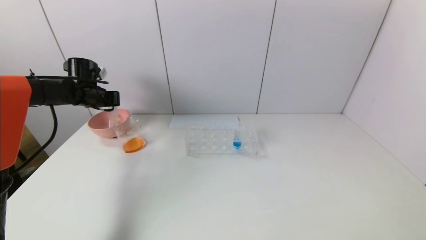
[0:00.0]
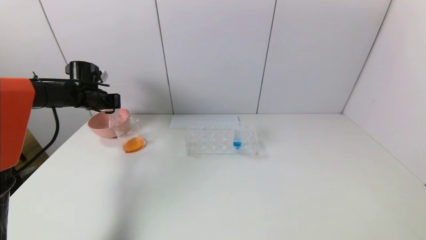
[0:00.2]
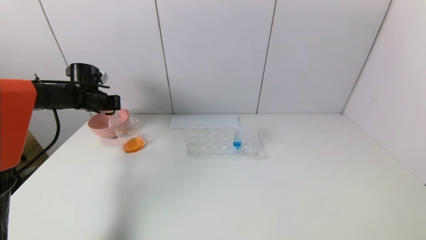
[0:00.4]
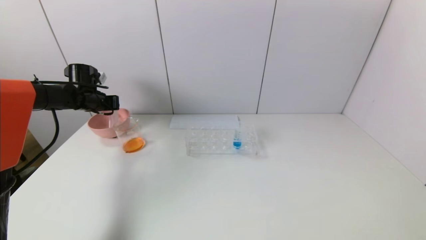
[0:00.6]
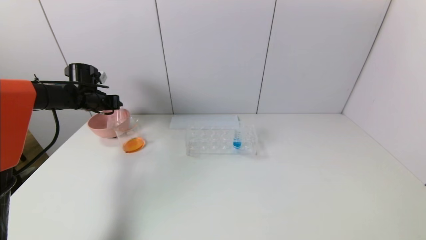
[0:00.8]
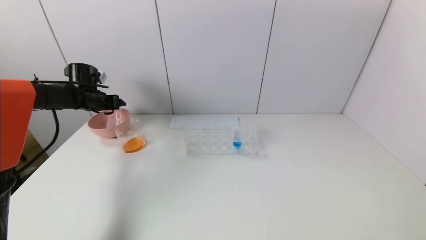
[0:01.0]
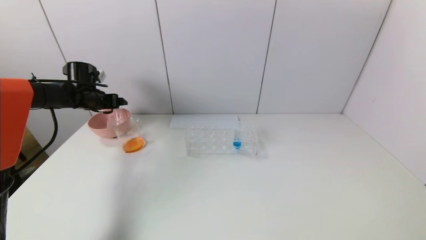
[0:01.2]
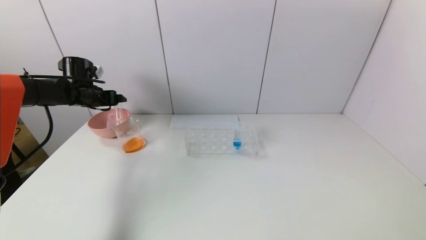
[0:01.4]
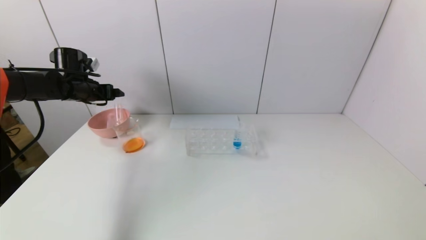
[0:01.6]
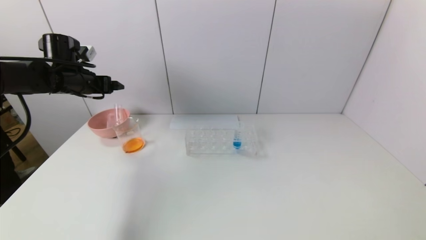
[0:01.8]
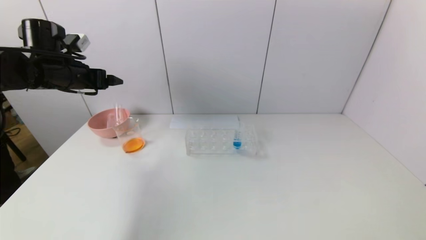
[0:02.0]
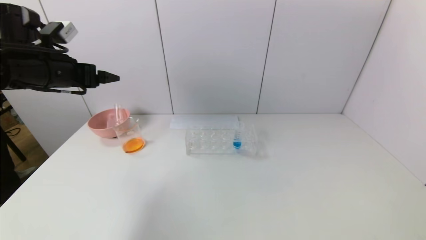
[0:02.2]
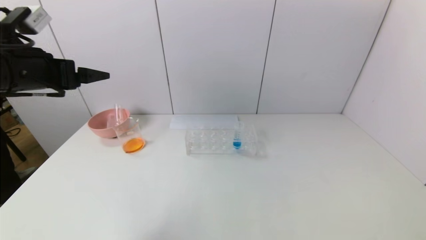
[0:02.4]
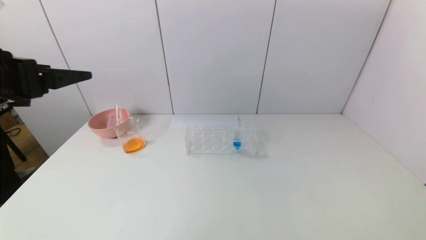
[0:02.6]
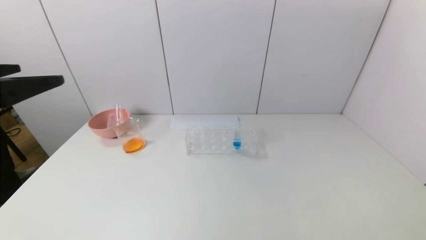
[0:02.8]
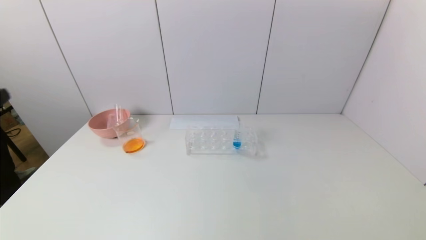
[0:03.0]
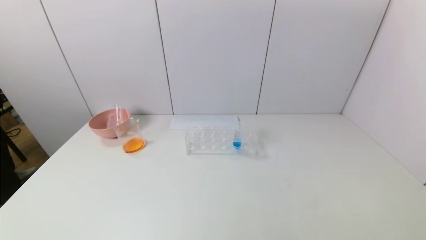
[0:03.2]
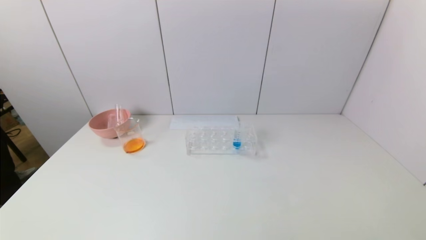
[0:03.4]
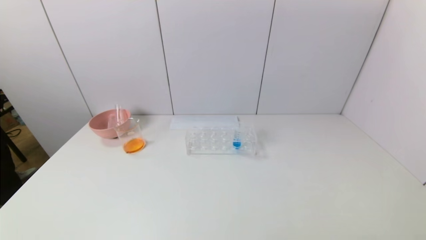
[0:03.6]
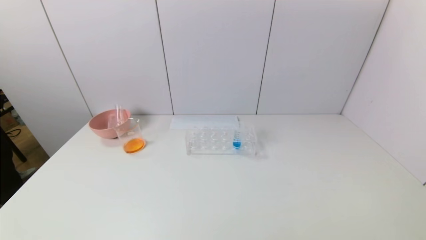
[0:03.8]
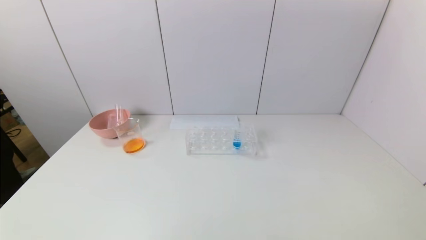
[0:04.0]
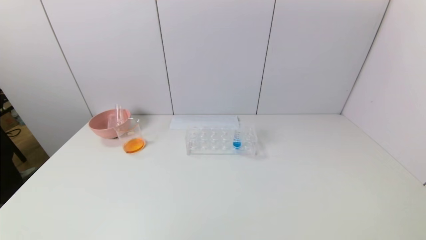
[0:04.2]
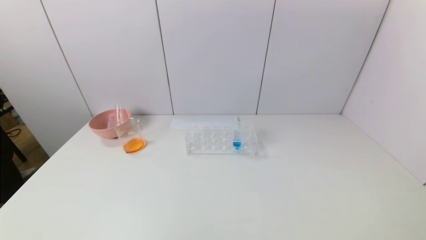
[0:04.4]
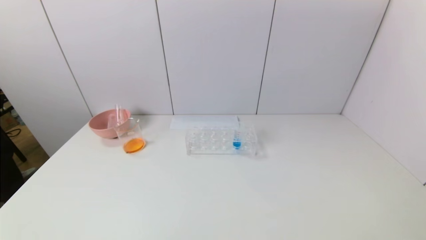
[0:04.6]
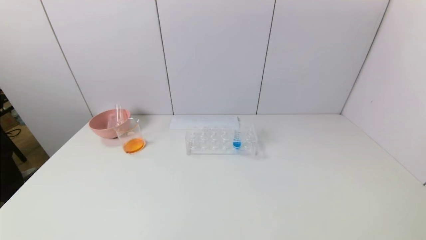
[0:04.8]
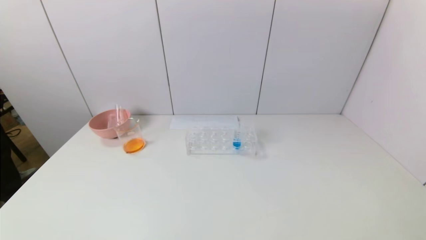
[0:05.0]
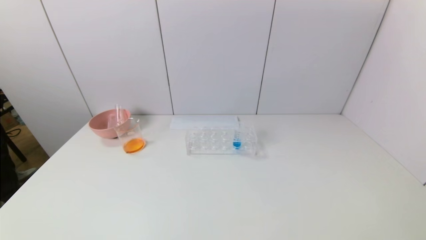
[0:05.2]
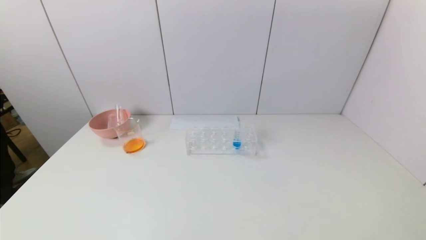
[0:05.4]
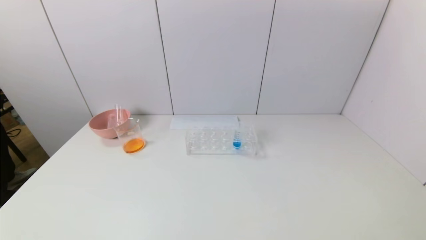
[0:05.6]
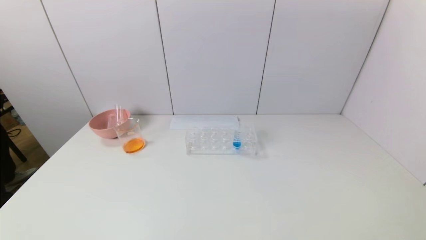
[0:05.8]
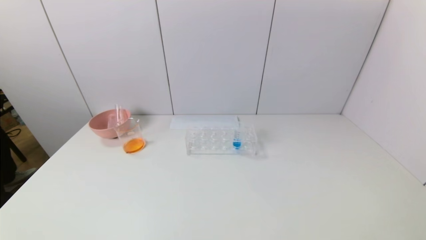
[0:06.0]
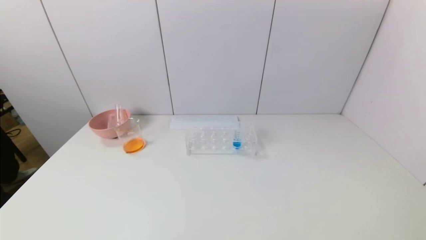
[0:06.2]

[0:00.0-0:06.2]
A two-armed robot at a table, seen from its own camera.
Task of the whole recording: pick up the test tube with yellow pigment and the test tube with red pigment by grippers and pour them into the beaker.
0:00.0 to 0:01.6: The left gripper changes place by some 5 cm, and opens its fingers.
0:01.6 to 0:03.2: The left gripper heads backward, covering approximately 50 cm.

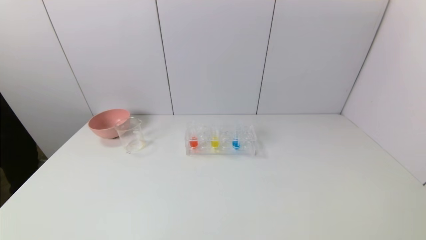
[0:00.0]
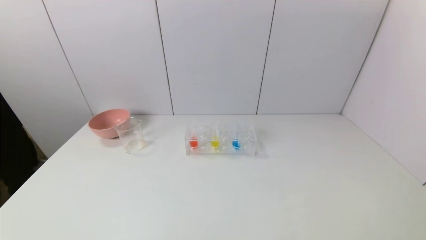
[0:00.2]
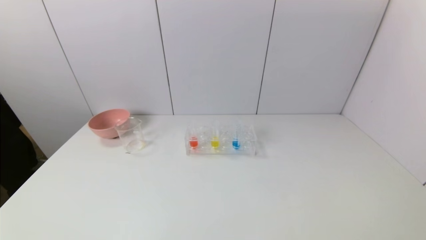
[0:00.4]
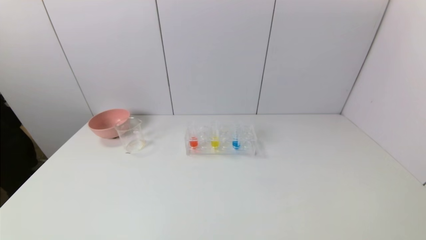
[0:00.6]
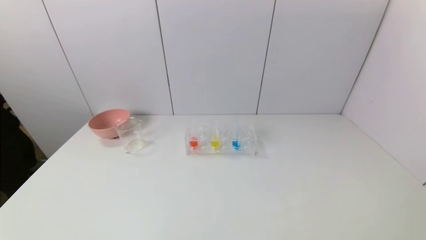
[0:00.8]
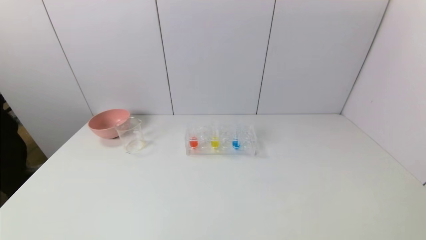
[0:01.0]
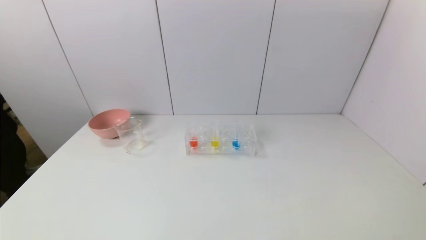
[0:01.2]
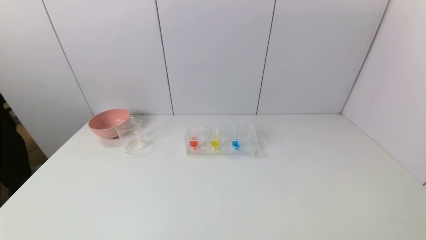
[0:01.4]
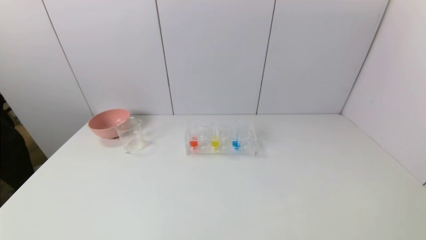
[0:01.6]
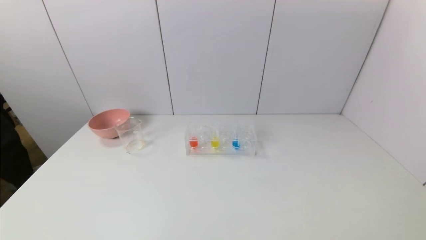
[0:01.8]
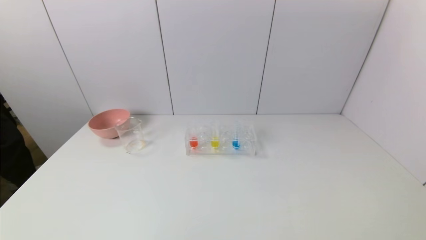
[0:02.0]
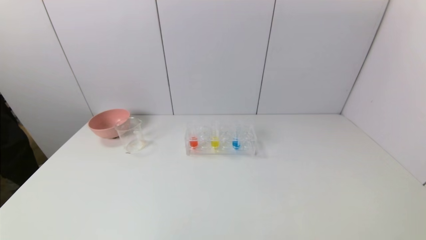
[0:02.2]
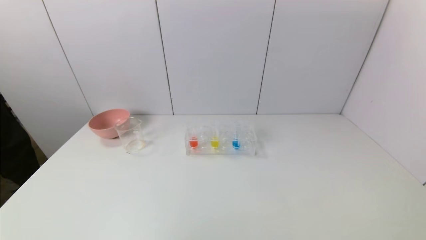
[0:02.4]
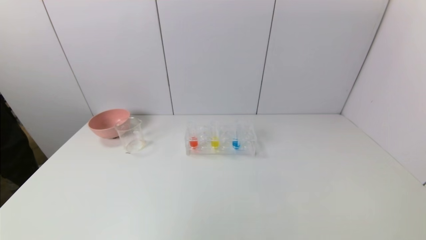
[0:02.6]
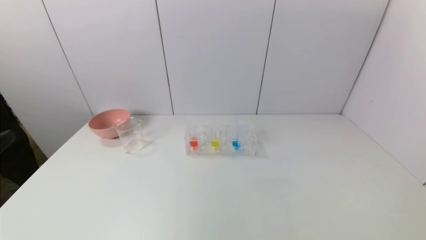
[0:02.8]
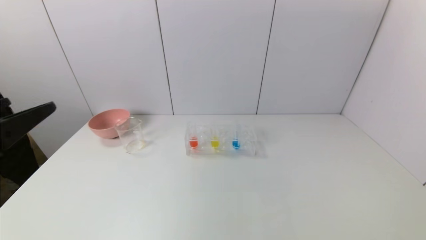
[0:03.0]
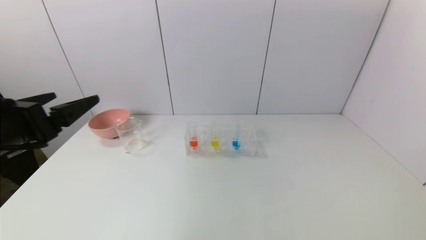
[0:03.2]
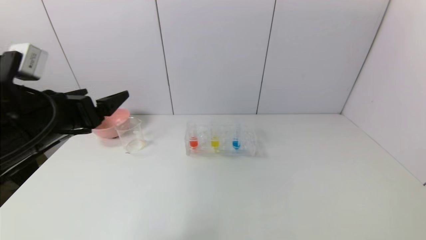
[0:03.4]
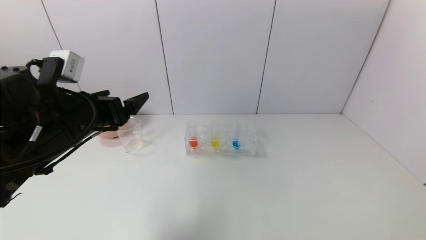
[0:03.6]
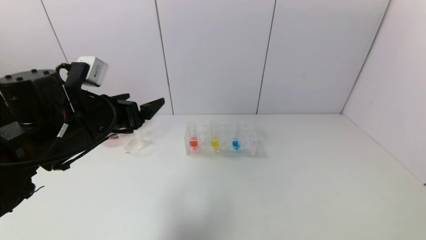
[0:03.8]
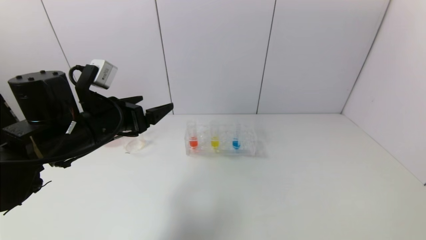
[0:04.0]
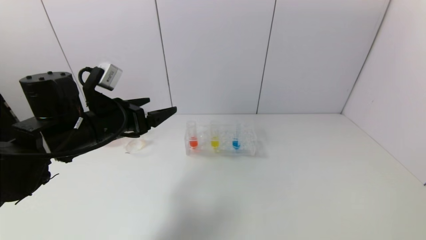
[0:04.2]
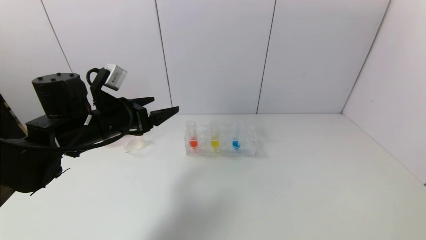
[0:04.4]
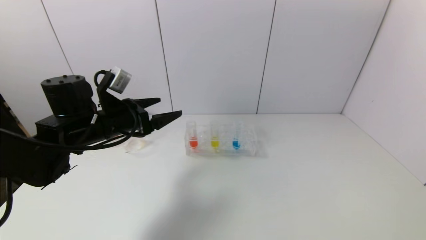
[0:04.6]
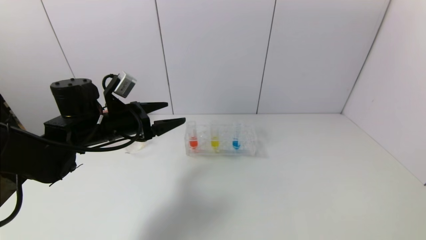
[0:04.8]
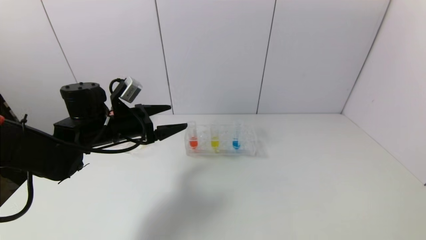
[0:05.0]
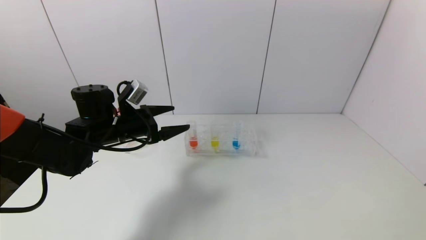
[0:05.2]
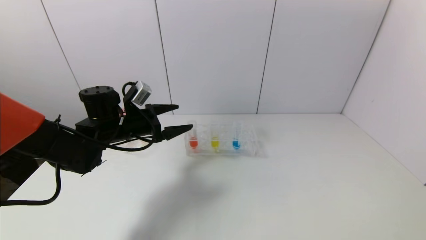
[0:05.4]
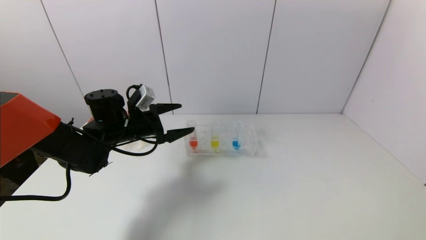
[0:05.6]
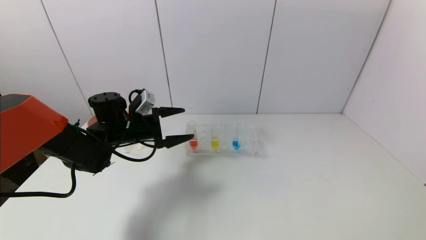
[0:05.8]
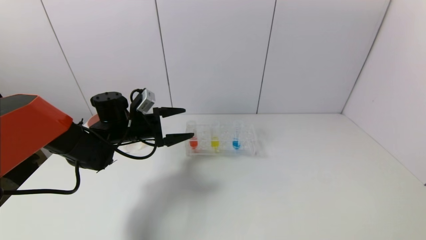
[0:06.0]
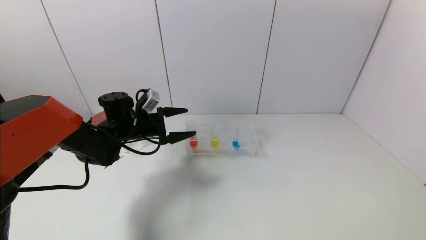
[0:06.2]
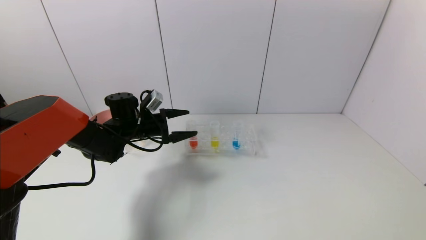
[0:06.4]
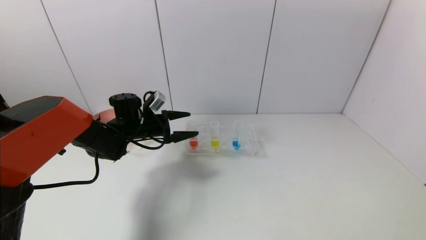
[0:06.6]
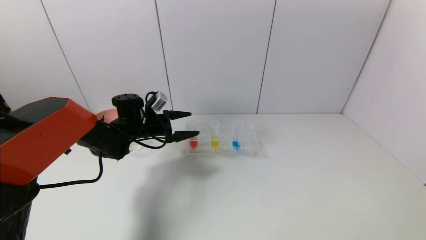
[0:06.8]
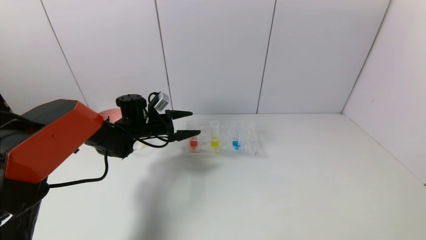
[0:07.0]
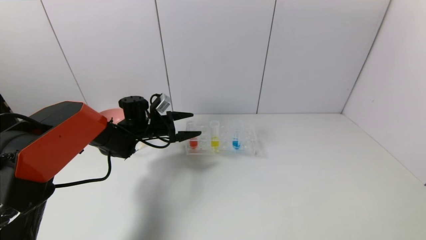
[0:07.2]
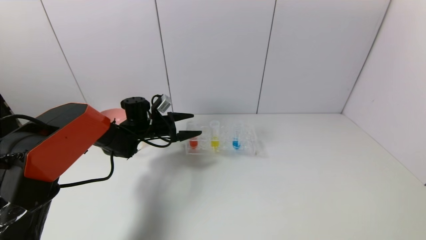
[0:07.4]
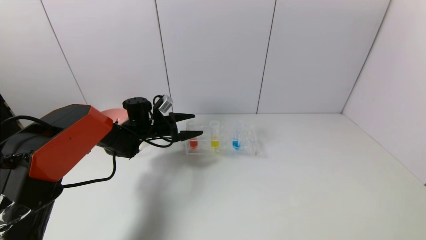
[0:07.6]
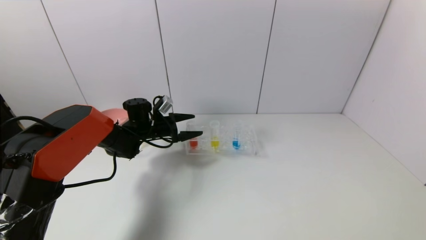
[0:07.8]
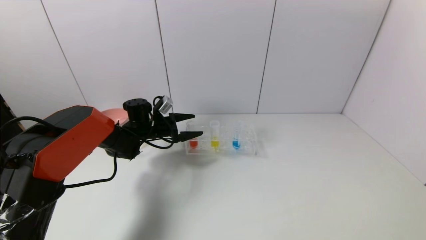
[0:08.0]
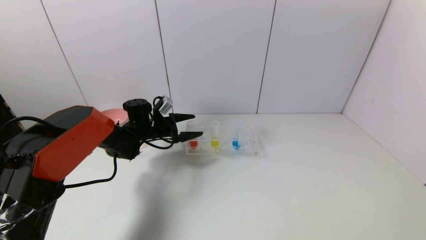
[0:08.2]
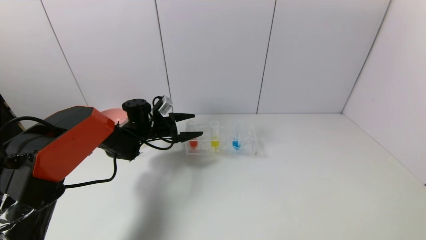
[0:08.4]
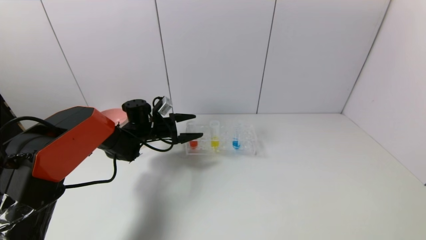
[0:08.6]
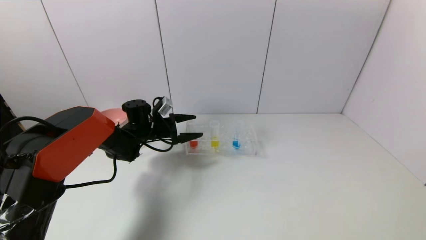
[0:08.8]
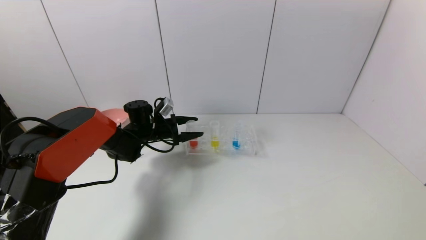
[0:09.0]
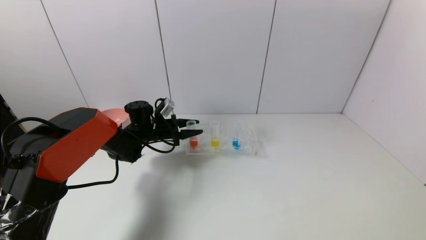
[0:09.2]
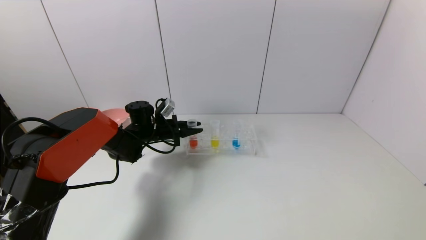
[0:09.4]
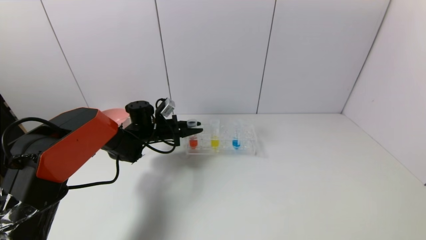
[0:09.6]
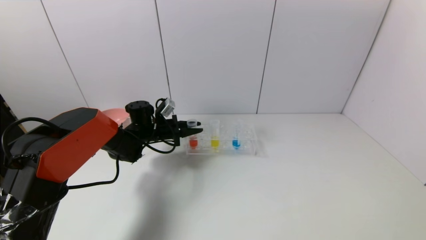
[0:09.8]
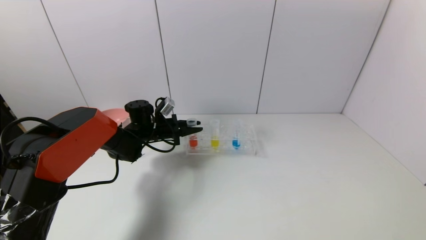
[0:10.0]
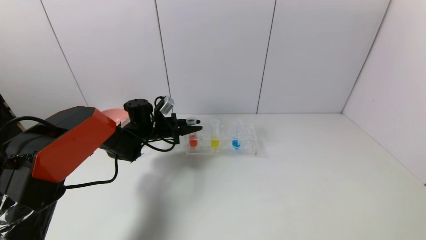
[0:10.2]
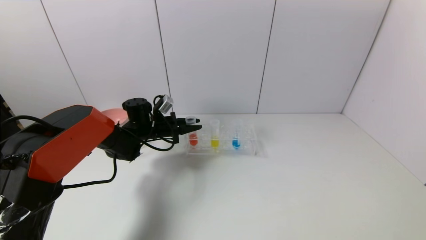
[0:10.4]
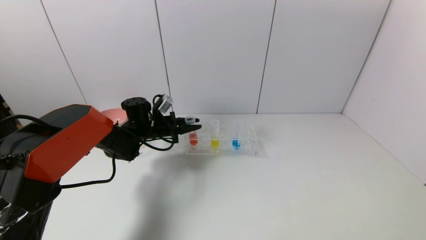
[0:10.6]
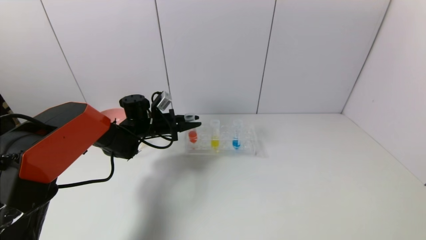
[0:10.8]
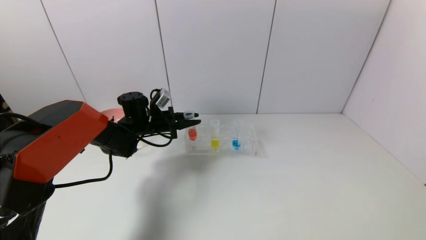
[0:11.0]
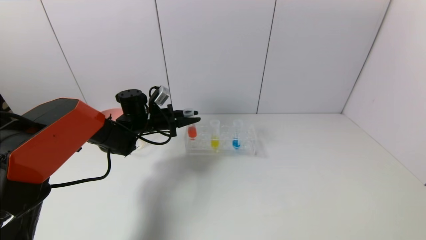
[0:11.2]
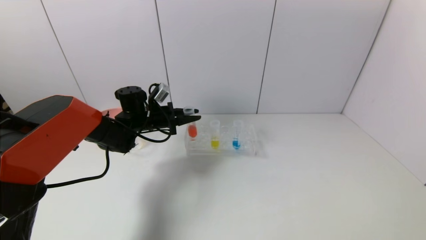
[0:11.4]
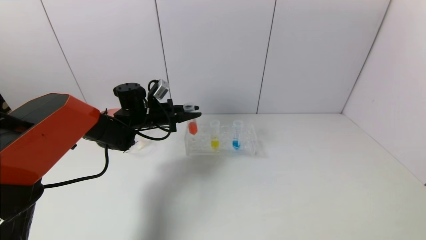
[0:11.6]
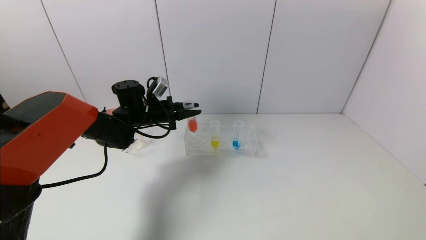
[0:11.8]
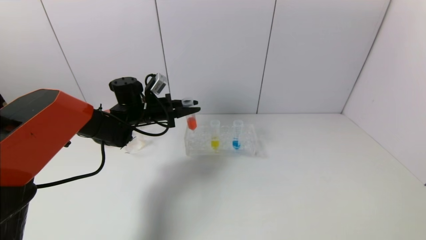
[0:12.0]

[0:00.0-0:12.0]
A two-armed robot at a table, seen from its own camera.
Task of the whole recording: pick up the test tube with yellow pigment and the test tube with red pigment by grippers and pour them into the beaker.
Step, 0:00.0 to 0:09.6: Grasp the red reagent with the left gripper.
0:00.0 to 0:01.6: The two grippers keep their place.
0:01.6 to 0:03.0: The left gripper shifts about 25 cm upward and forward.
0:03.0 to 0:04.4: The left gripper goes approximately 20 cm forward and to the right.
0:04.4 to 0:06.0: The left gripper moves forward and downward, roughly 10 cm.
0:06.0 to 0:07.6: The left gripper goes roughly 5 cm forward.
0:07.6 to 0:09.0: Both grippers stay about where they are.
0:09.0 to 0:10.4: The left gripper closes up.
0:10.4 to 0:12.0: The left gripper heads upward, covering roughly 5 cm.
